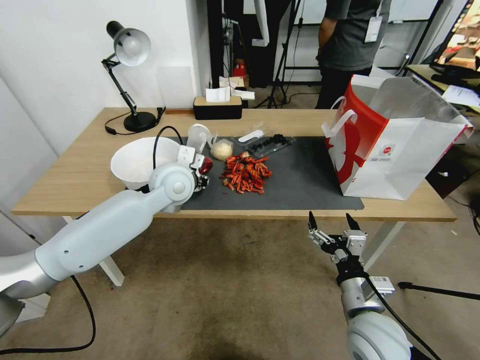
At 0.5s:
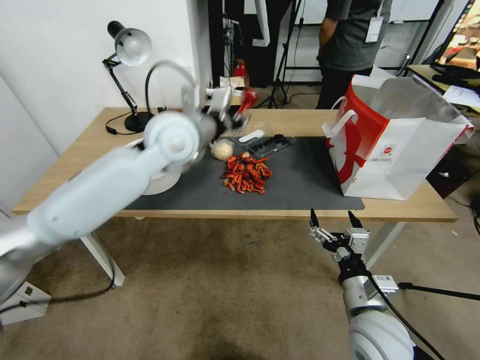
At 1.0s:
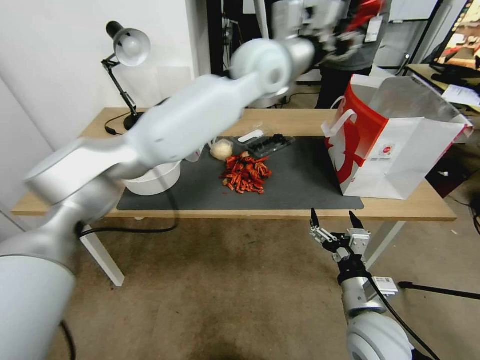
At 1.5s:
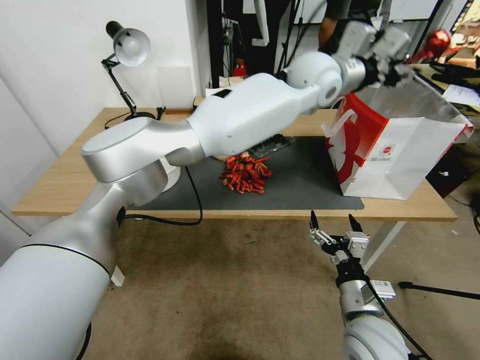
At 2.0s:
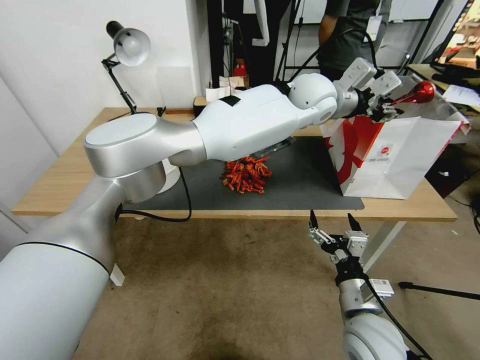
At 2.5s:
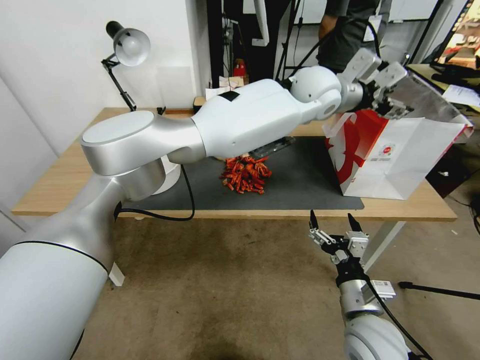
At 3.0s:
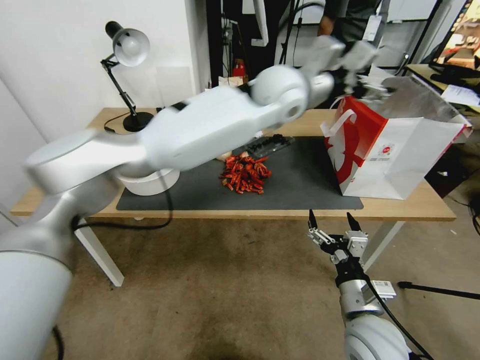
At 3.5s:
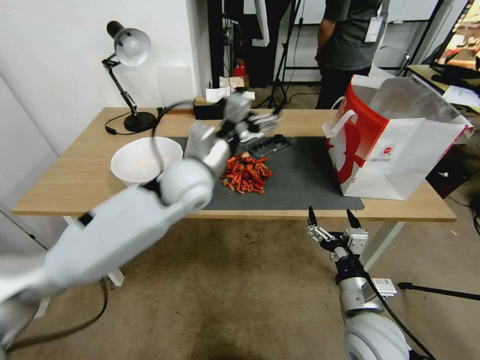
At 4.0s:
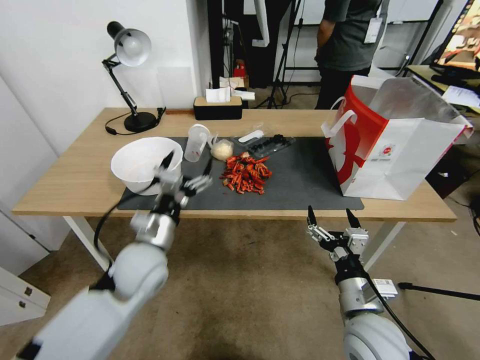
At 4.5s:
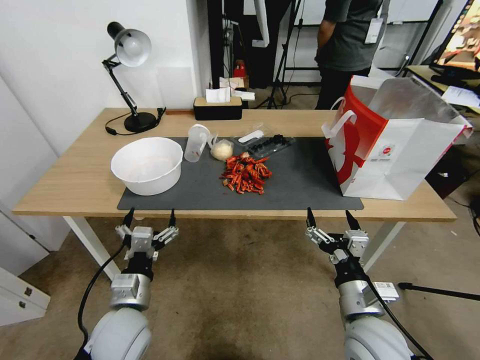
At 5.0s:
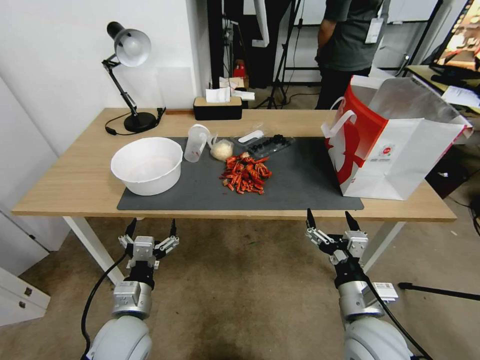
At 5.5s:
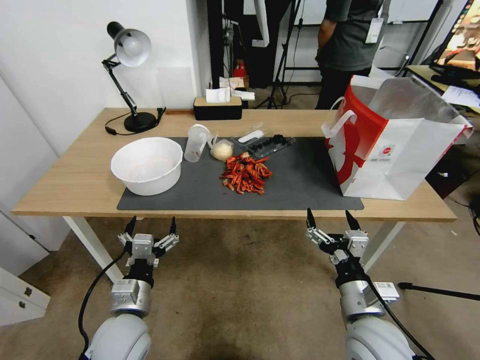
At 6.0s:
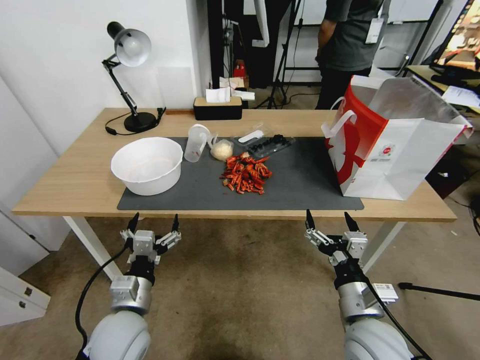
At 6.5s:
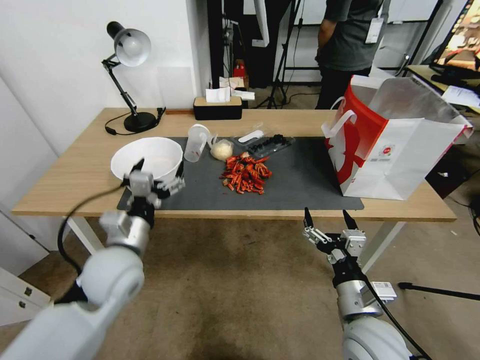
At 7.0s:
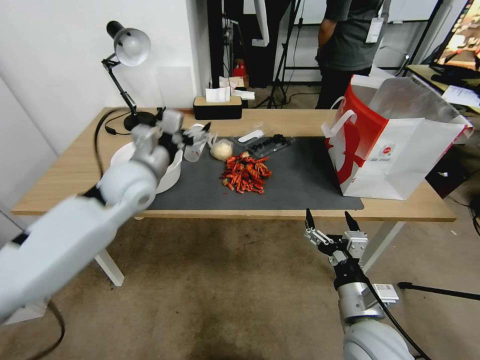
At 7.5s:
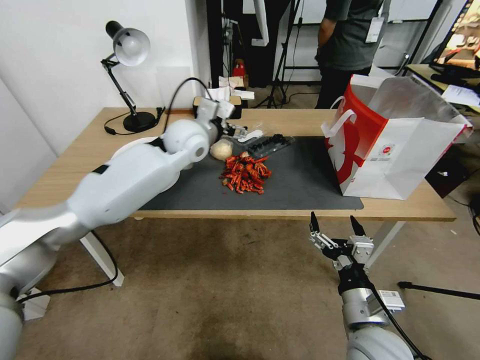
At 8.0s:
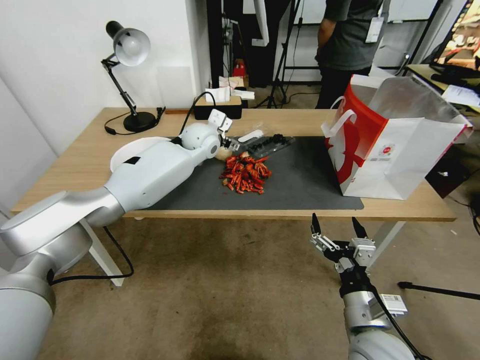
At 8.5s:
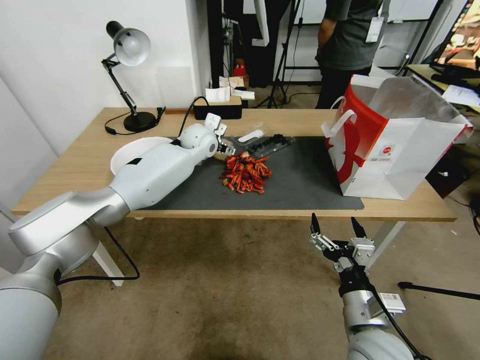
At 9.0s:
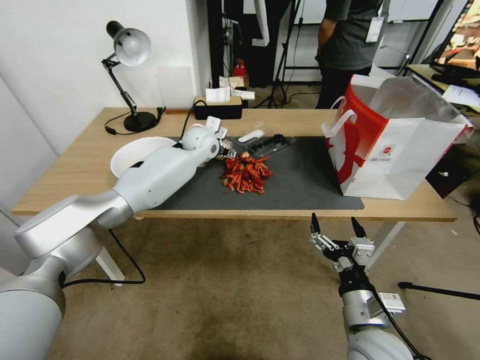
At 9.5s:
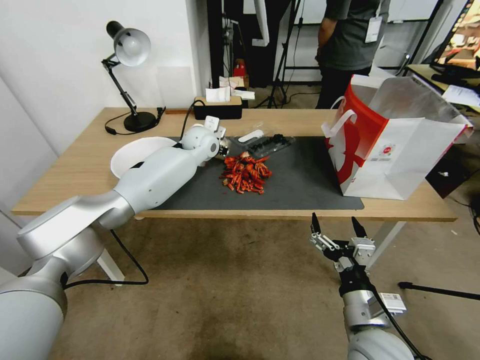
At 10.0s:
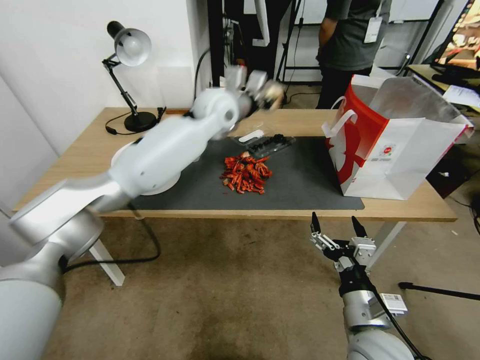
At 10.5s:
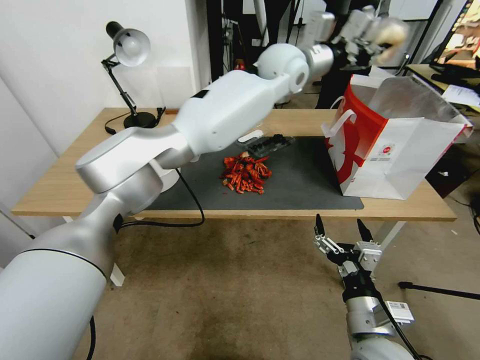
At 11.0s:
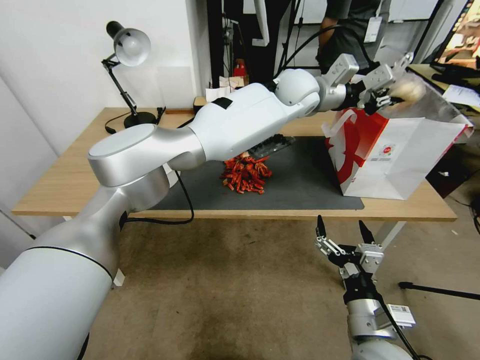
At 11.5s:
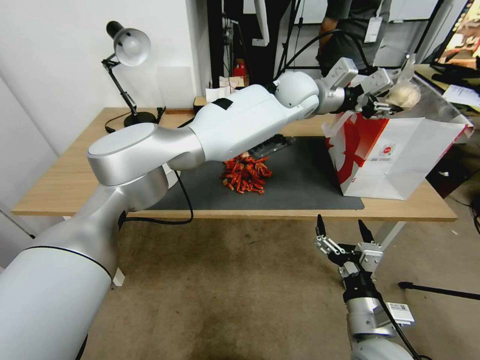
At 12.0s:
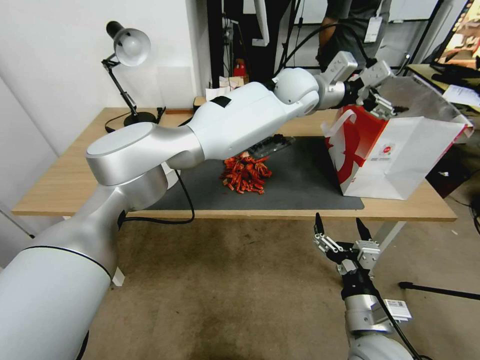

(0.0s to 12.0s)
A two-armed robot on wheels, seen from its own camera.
0.0s - 2.0s: The left gripper shifts some 35 cm to the right and upward.
2.0s - 4.0s: The left gripper travels to the left, backward and downward by about 50 cm, and opens.
4.0s - 6.0s: The left gripper moves backward and downward, approximately 10 cm.
6.0s - 8.0s: The left gripper shifts some 40 cm forward and upward.
8.0s - 10.0s: The left gripper is displaced upward and to the right by about 15 cm, and closes its fingers.
10.0s - 12.0s: The left gripper moves to the right, approximately 15 cm, and opens its fingers.

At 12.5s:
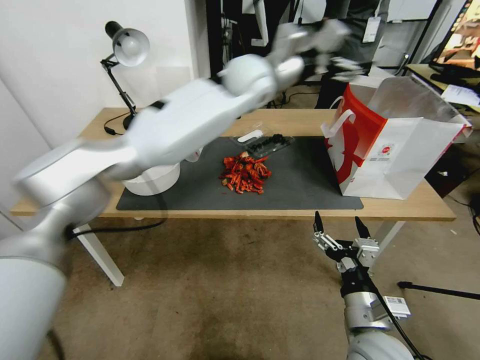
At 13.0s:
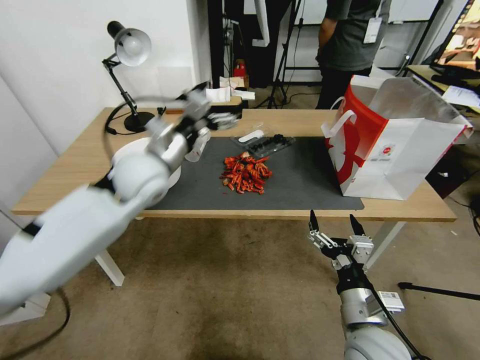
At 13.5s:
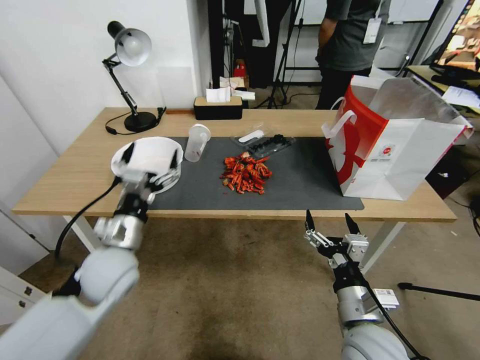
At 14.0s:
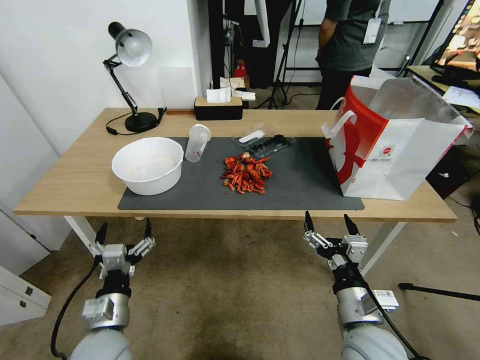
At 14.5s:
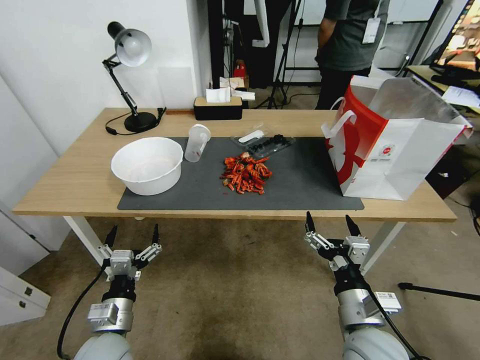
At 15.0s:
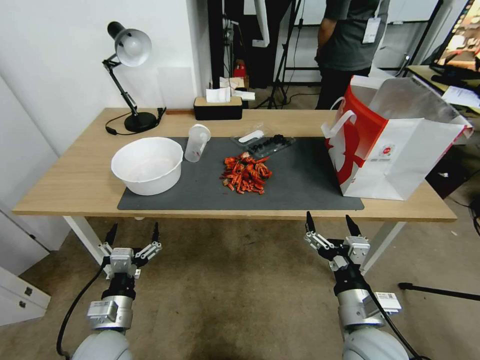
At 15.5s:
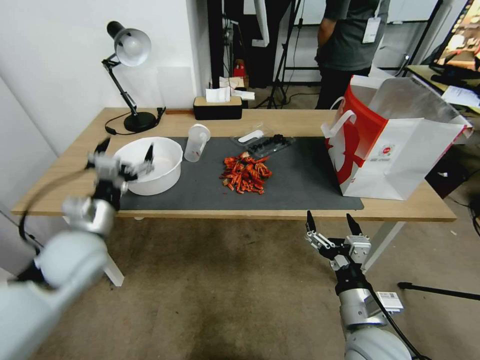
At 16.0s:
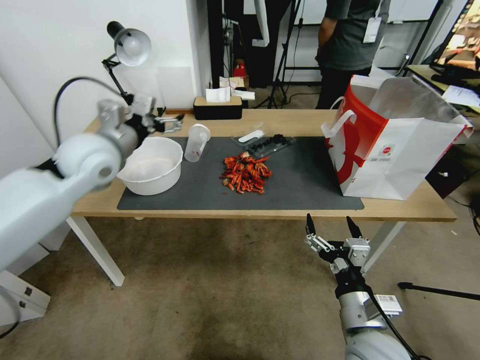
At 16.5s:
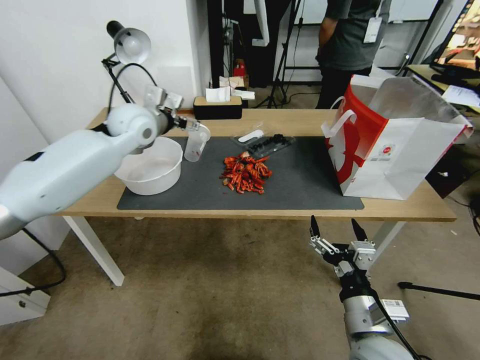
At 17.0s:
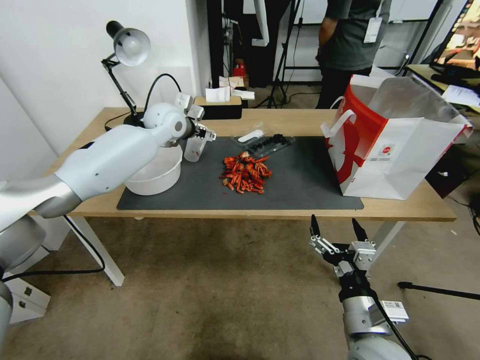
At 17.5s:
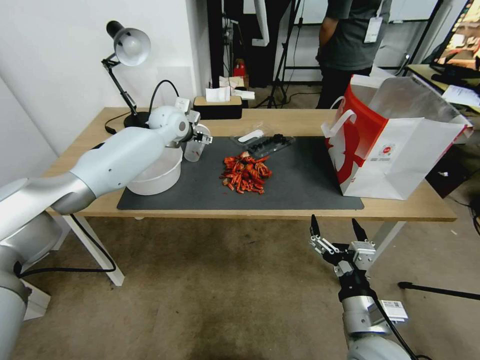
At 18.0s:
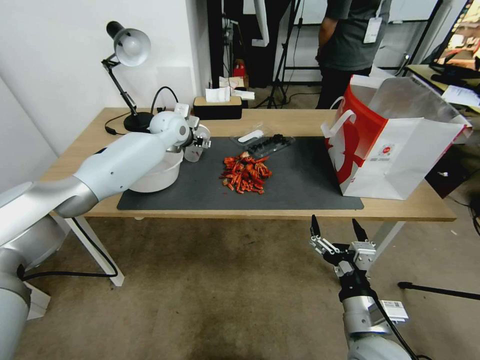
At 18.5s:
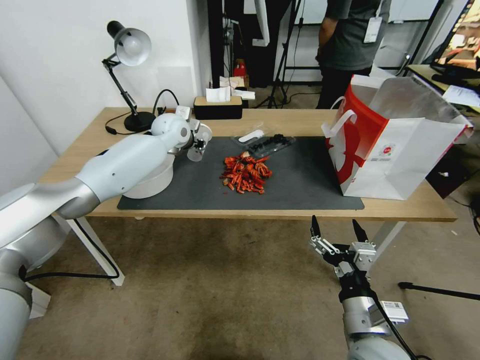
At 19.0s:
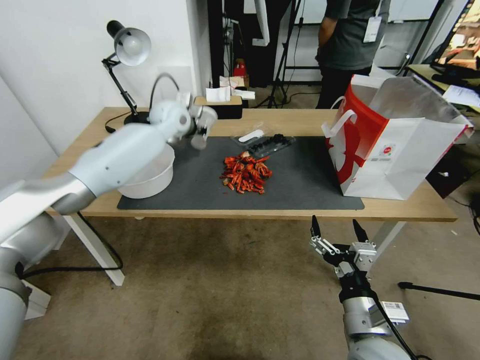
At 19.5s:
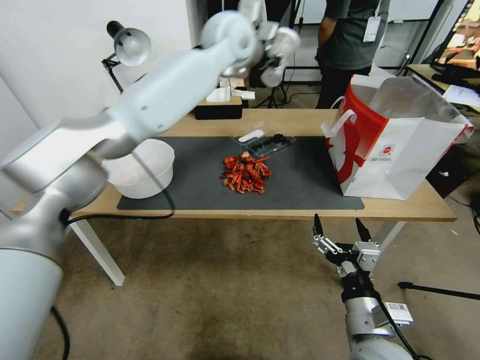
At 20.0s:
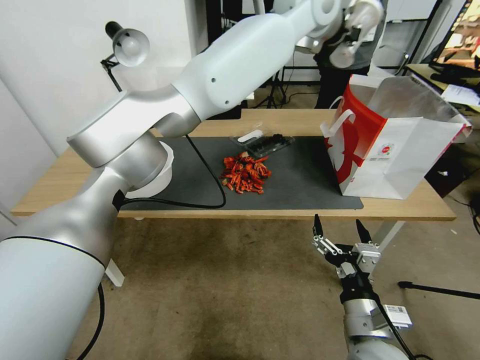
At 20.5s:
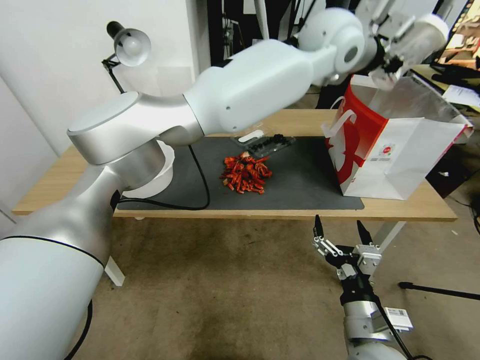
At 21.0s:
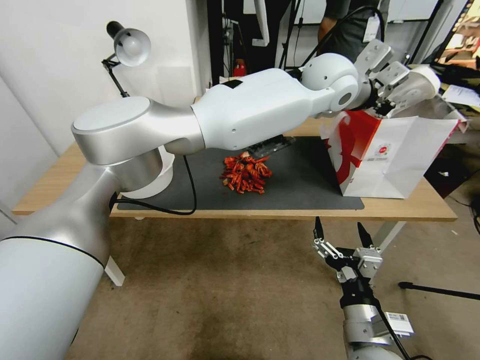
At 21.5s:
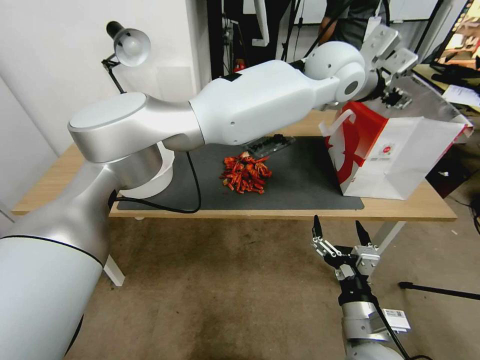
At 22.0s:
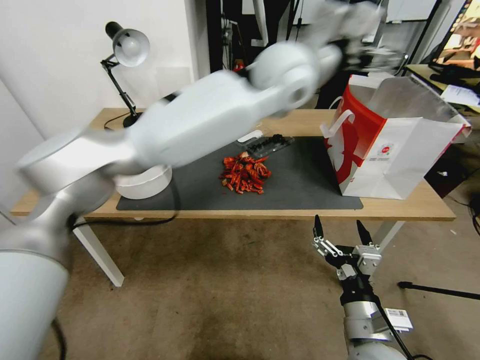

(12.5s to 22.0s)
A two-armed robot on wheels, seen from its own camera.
12.5s - 14.5s: The left gripper is displaced backward, downward and to the left by approximately 60 cm.
14.5s - 16.5s: The left gripper goes roughly 50 cm forward and upward.
16.5s - 18.0s: The left gripper travels forward and downward by about 10 cm.
18.0s - 20.0s: The left gripper moves to the right and upward, approximately 40 cm, and closes up.
20.0s - 22.0s: The left gripper travels backward and downward by about 10 cm, and opens.

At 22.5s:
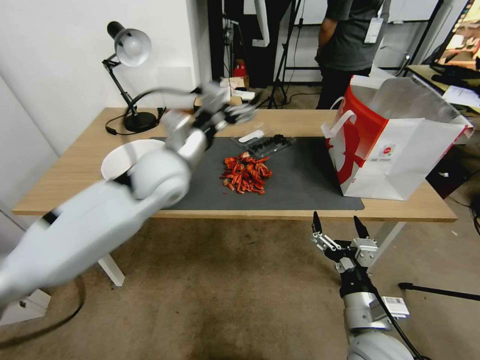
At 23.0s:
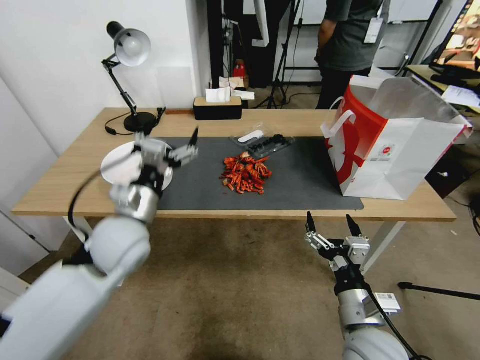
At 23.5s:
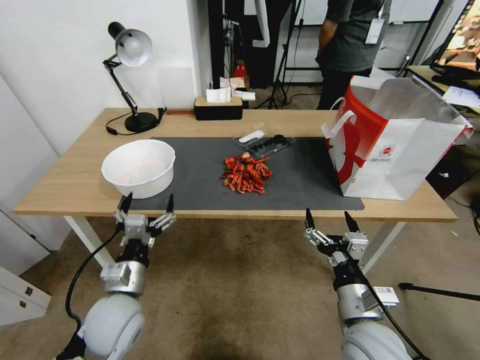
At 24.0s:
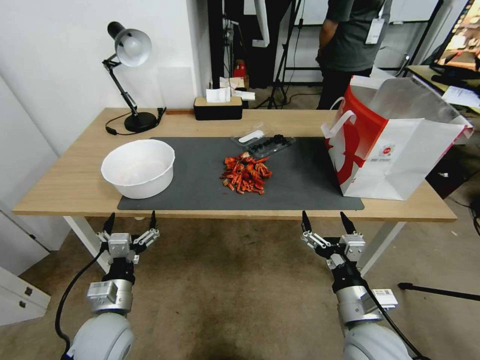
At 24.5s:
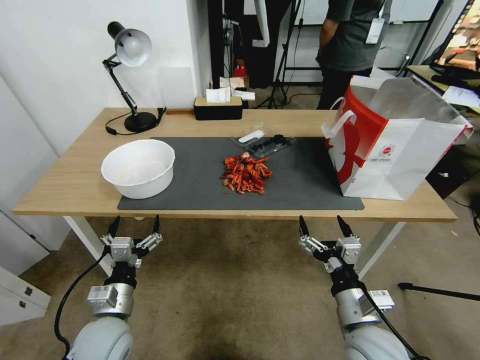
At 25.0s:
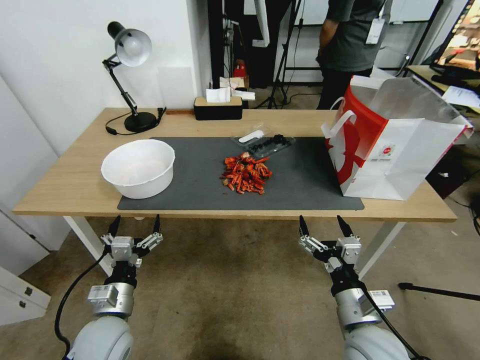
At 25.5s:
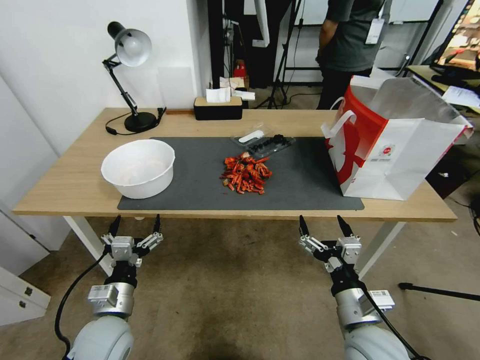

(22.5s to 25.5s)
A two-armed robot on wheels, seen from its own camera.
22.5s - 24.0s: The left gripper shifts about 35 cm downward, backward and to the left.
24.0s - 25.5s: Neither gripper changes place.
